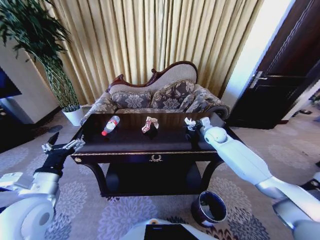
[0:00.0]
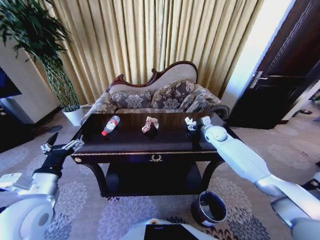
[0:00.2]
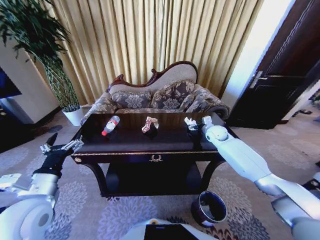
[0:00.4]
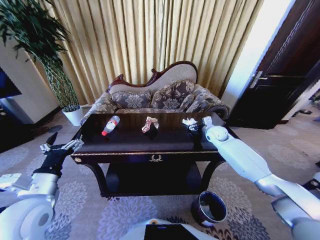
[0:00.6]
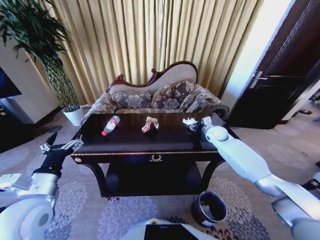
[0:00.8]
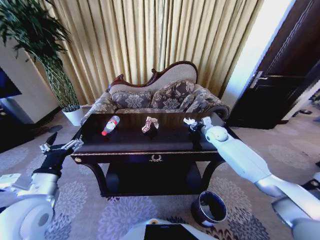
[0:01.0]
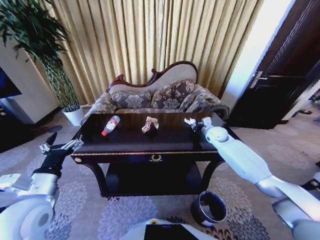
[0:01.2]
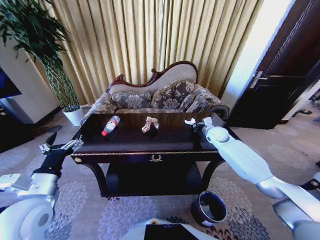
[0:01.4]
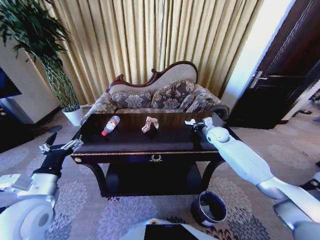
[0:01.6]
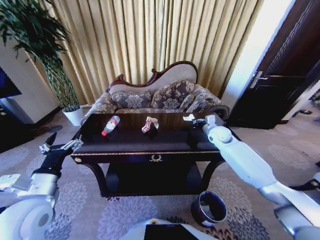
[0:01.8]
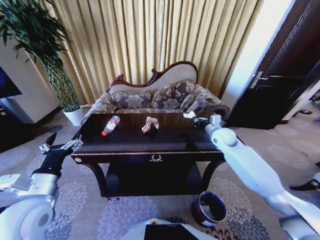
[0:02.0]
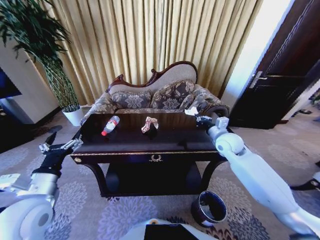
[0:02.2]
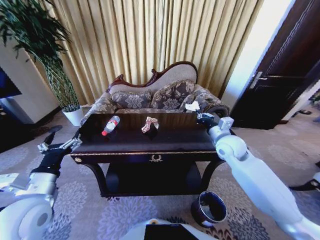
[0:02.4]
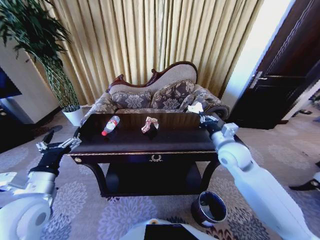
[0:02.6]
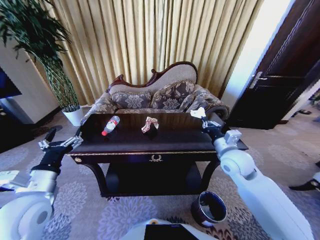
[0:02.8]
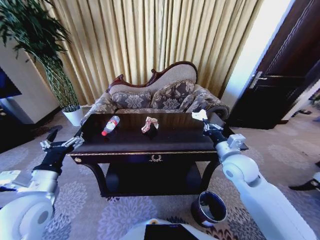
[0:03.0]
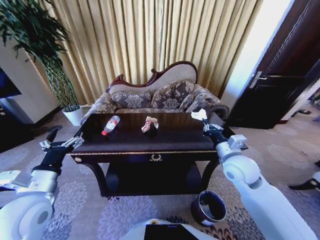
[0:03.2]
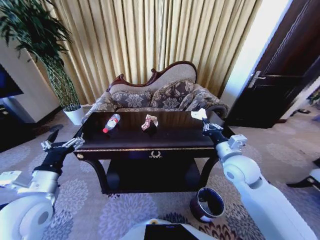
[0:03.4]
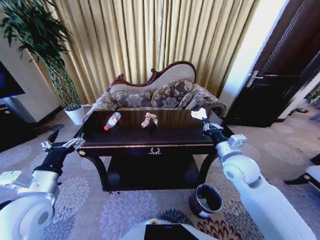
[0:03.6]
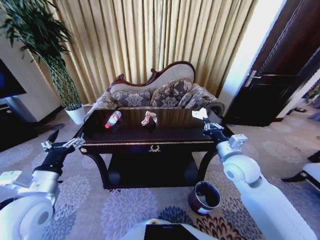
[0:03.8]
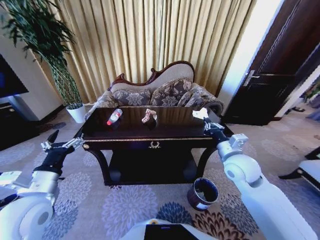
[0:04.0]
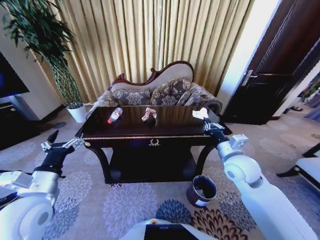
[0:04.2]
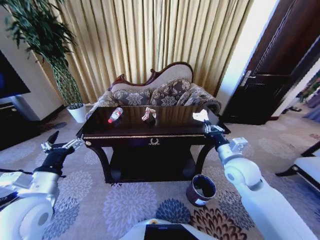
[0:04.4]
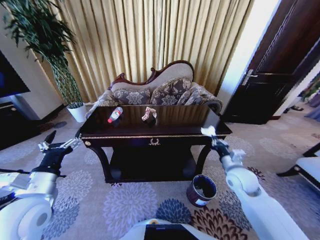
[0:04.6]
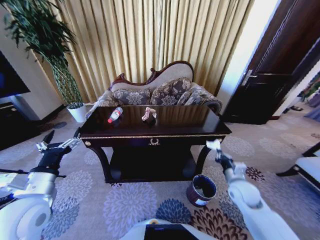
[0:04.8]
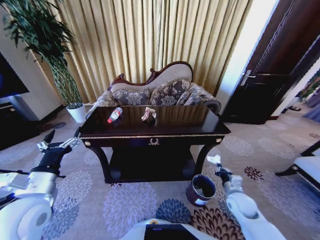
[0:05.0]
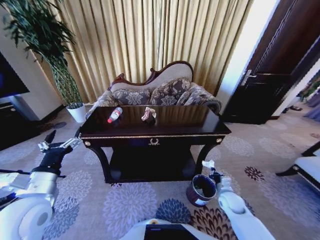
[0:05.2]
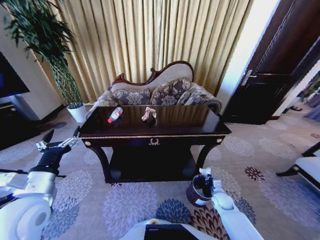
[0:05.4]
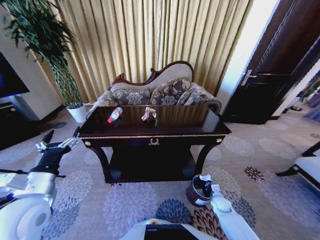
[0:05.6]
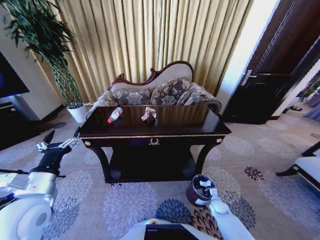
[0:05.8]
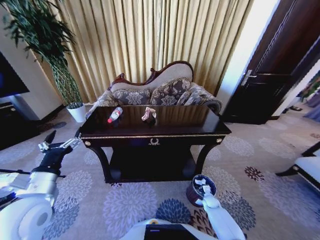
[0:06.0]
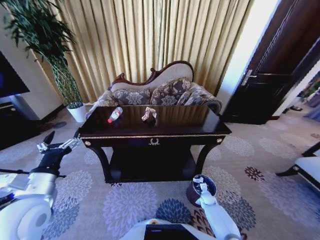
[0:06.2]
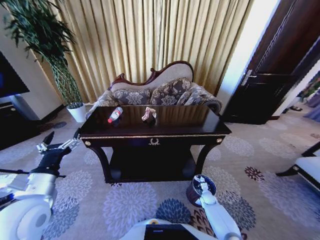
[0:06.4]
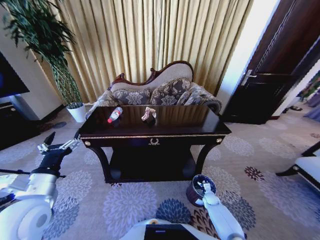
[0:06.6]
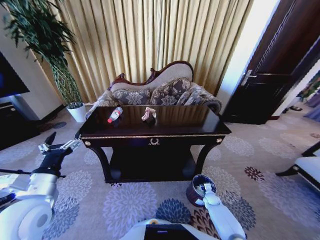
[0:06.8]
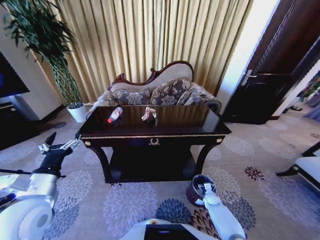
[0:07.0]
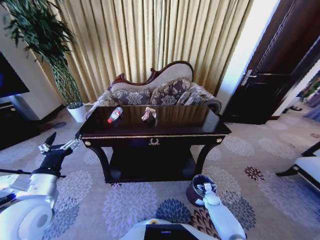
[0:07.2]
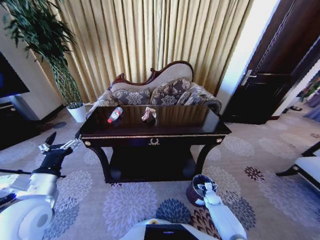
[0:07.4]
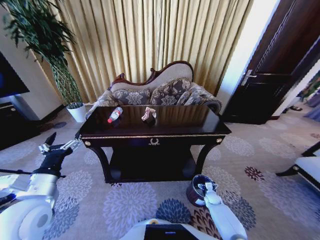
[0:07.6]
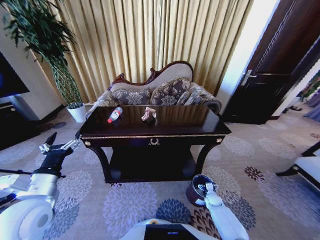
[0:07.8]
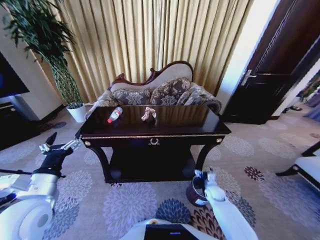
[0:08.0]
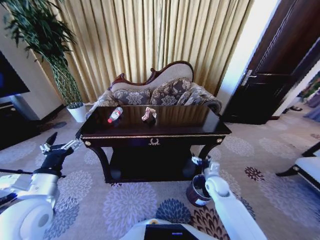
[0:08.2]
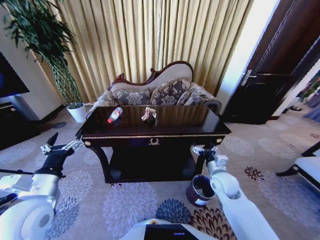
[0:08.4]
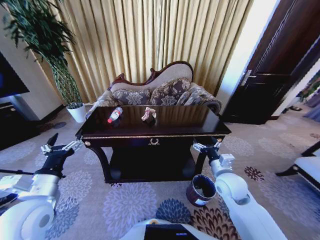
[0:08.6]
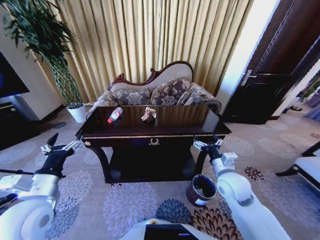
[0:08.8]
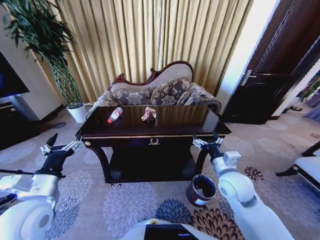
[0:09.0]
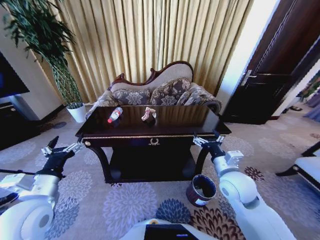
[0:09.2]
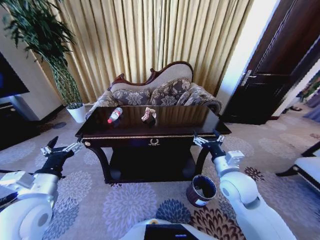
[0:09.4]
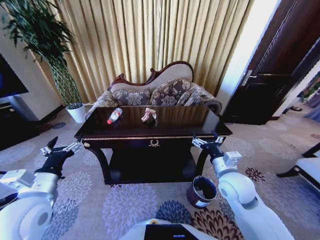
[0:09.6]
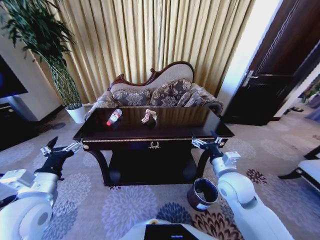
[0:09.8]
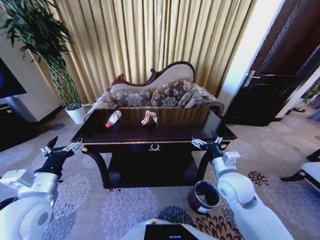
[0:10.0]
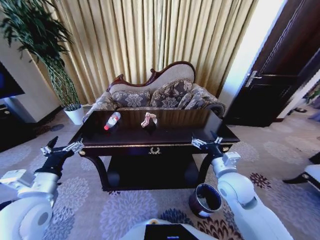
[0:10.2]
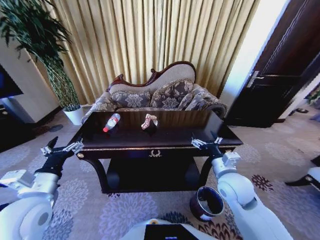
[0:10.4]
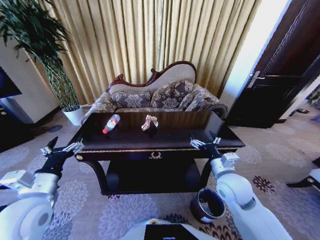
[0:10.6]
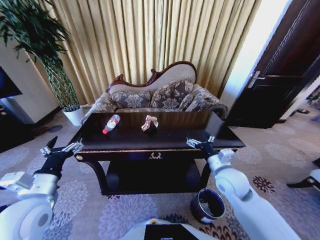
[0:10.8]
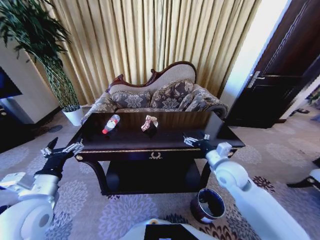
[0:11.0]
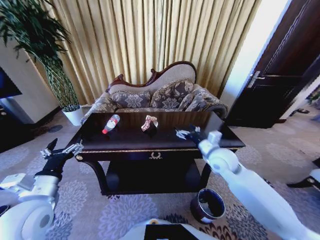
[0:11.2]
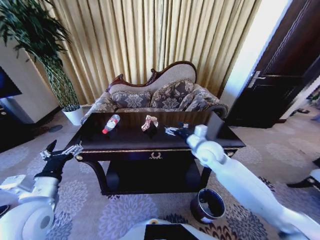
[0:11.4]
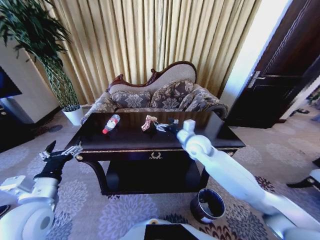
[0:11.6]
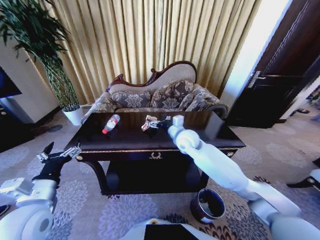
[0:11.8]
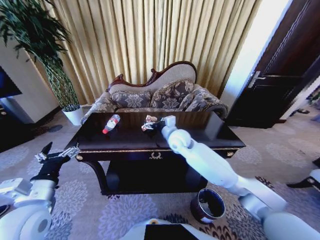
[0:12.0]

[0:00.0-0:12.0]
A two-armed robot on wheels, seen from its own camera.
Task of the whole recording: Move to the front of the table and place the trash on the table into the trash bin.
0:00.0 to 0:01.6: The right gripper closes up.
0:01.6 to 0:03.0: The right gripper is displaced backward by some 20 cm.
0:04.4 to 0:06.0: The right gripper heads downward, covering about 40 cm.
0:06.0 to 0:07.6: The right gripper opens its fingers.
0:07.6 to 0:09.0: The right gripper heads upward, covering about 40 cm.
0:10.4 to 0:12.0: The right gripper travels forward and to the left by approximately 25 cm.

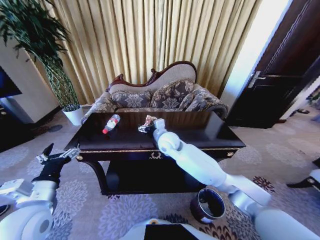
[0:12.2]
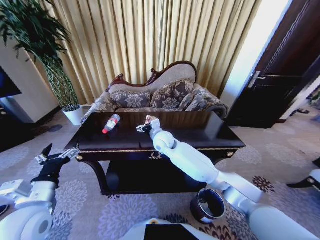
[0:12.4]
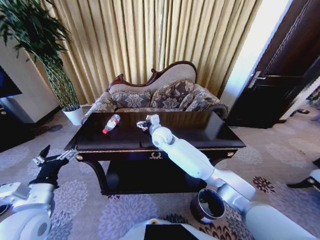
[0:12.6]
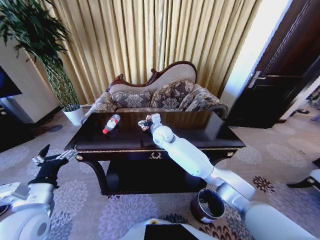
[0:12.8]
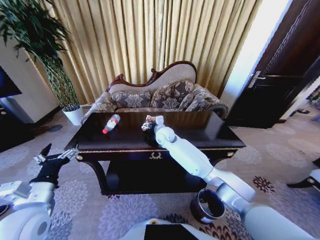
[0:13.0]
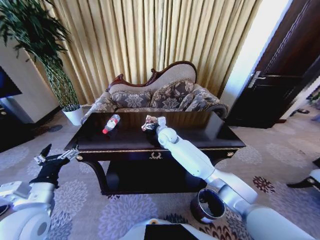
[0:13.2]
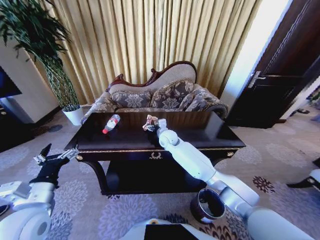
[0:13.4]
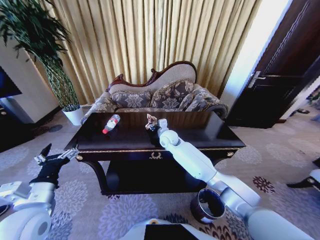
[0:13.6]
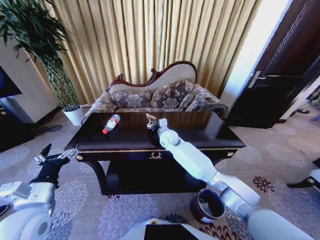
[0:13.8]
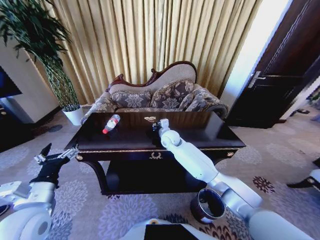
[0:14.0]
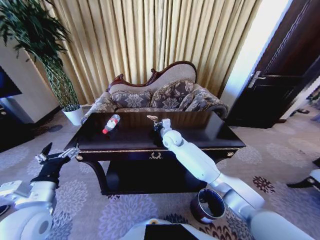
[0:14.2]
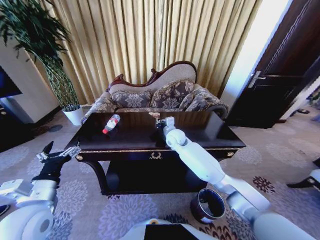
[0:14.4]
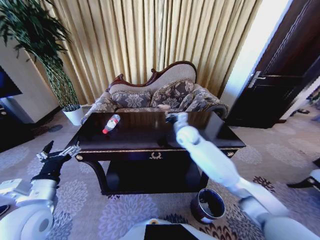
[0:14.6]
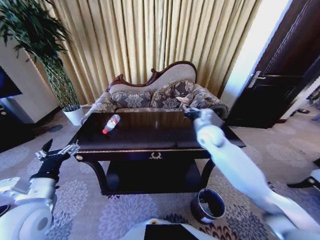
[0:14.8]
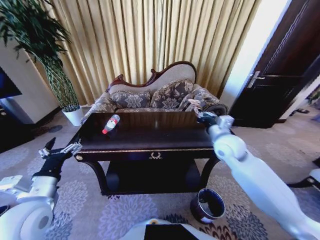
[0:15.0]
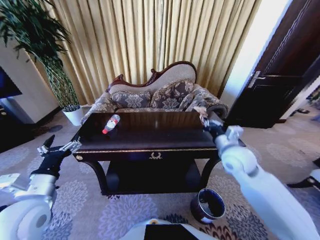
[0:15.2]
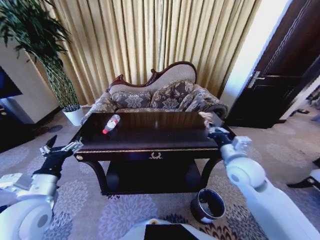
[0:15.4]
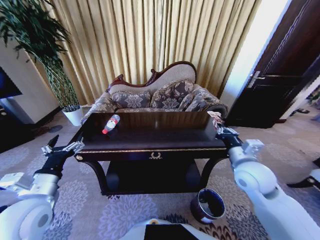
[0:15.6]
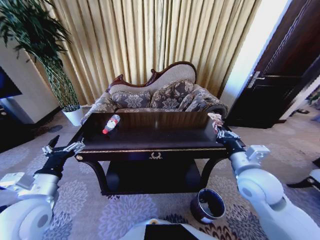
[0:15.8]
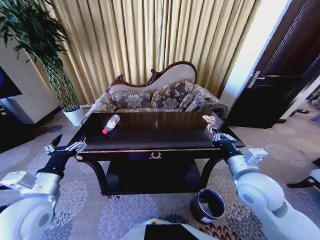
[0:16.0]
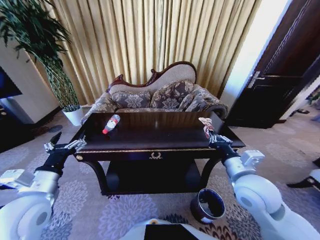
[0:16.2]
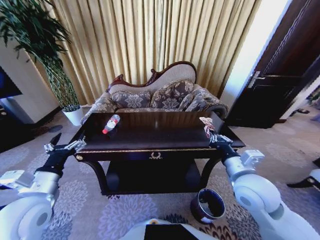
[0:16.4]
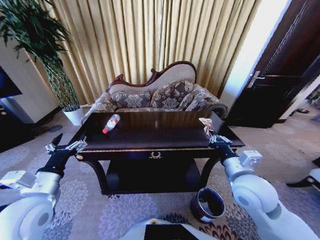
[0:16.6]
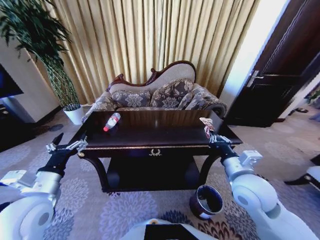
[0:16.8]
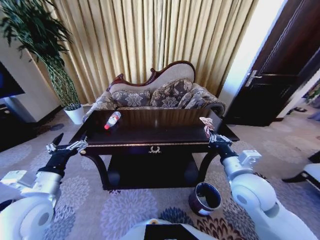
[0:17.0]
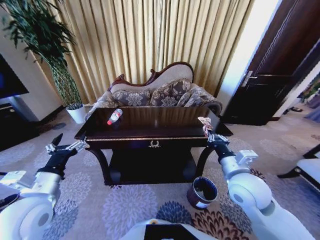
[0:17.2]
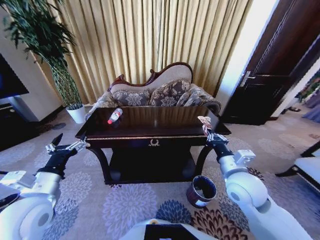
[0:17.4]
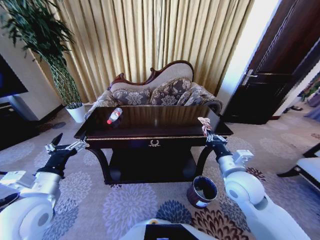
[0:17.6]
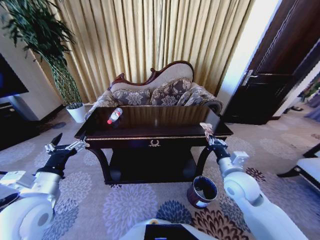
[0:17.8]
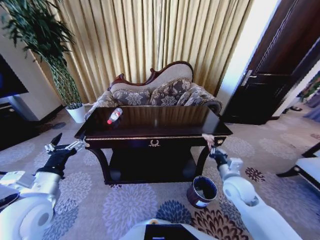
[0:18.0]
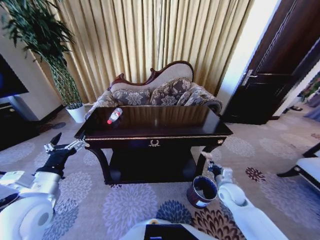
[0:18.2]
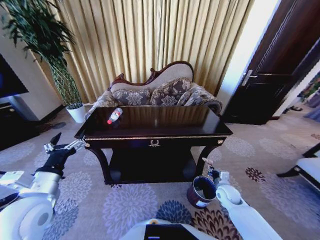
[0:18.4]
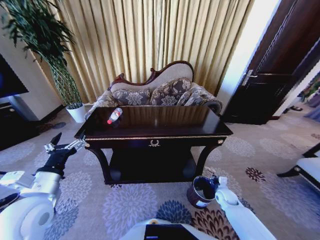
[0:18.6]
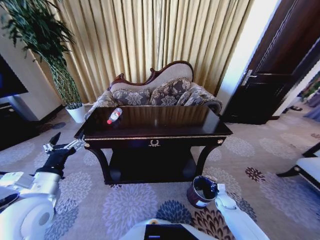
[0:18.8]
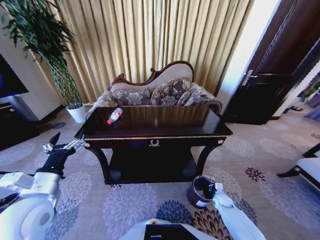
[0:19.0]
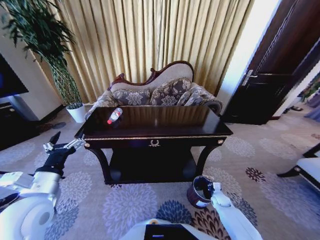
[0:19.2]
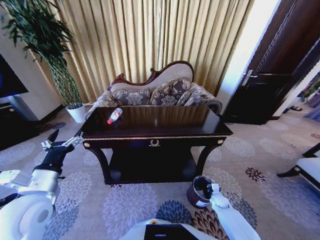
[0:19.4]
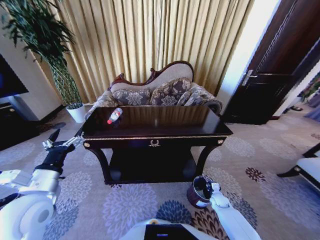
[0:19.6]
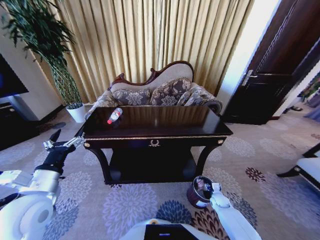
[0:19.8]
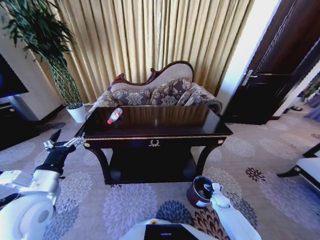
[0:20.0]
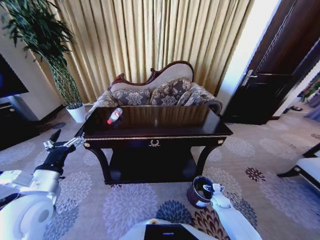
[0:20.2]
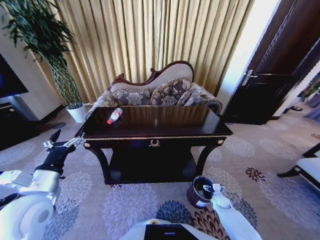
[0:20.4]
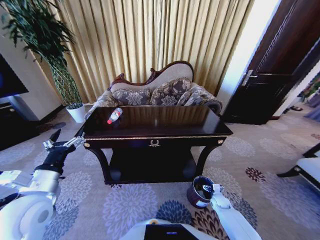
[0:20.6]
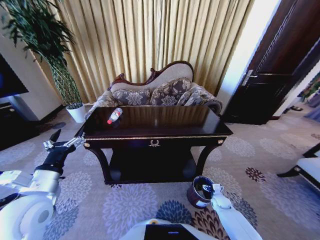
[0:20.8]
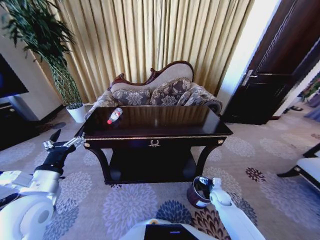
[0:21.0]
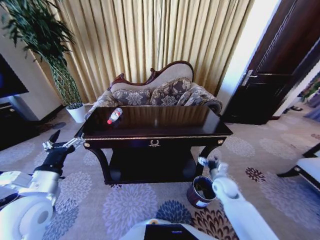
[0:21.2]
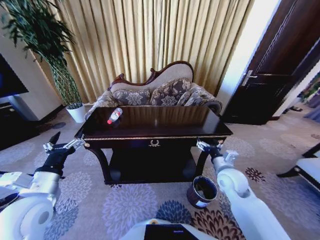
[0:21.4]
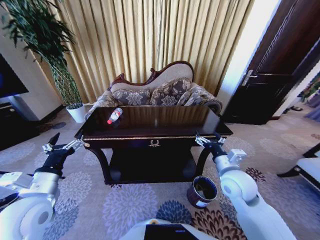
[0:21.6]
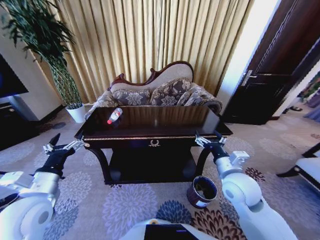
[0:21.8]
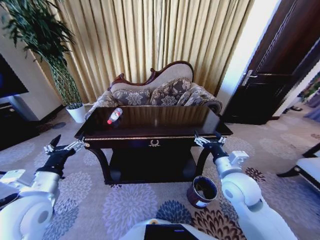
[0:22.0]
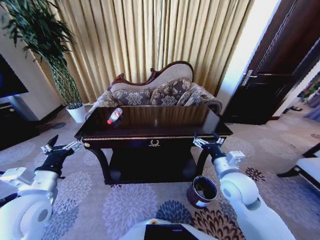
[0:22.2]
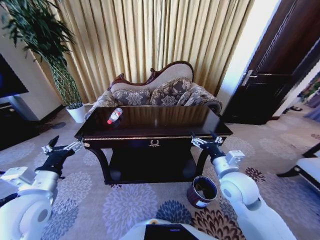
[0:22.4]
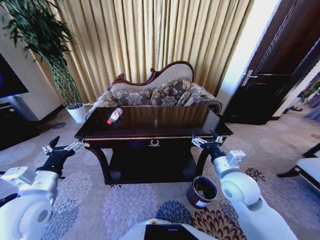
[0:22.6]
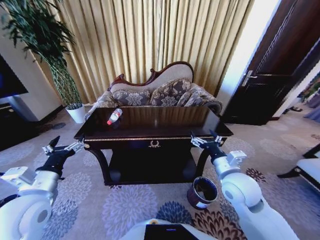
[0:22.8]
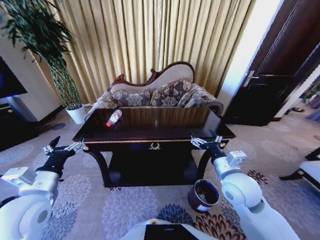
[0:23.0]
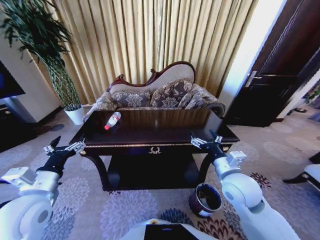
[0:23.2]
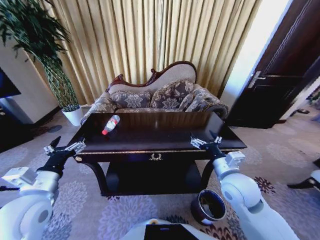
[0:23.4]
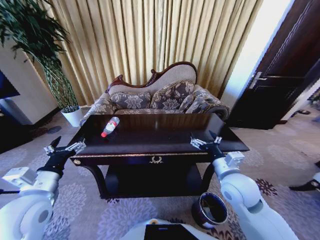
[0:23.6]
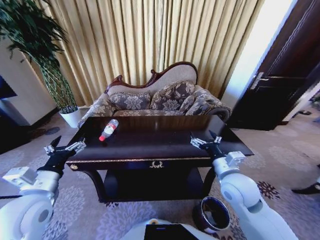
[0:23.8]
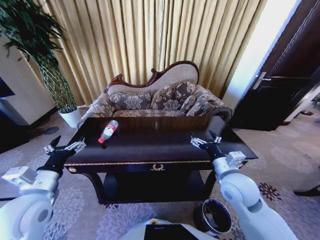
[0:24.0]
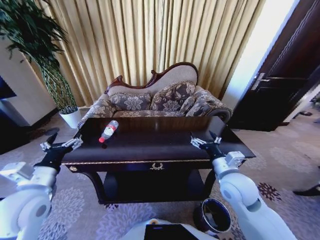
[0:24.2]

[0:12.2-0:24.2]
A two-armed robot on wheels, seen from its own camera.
Task of the whole recording: Move to the front of the table and place the trash on the table into the trash bin.
0:12.2 to 0:13.8: The right gripper shifts approximately 5 cm forward, and closes its fingers.
0:13.8 to 0:15.2: The right gripper heads to the right and backward, covering roughly 25 cm, and closes its fingers.
0:15.2 to 0:16.6: The right gripper moves backward, about 10 cm.
0:16.6 to 0:18.2: The right gripper is displaced downward by approximately 20 cm.
0:18.2 to 0:19.8: The right gripper shifts about 20 cm downward, and opens up.
0:19.8 to 0:21.2: The right gripper shifts approximately 20 cm upward, and opens up.
0:21.2 to 0:22.6: The right gripper moves upward and to the left, roughly 20 cm.
